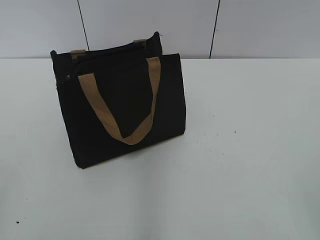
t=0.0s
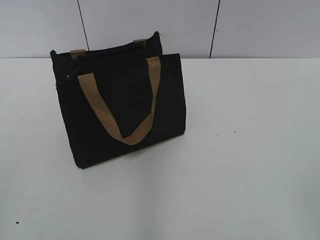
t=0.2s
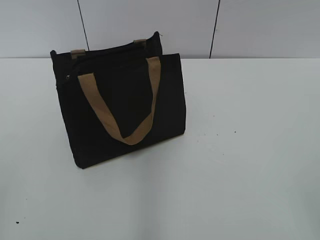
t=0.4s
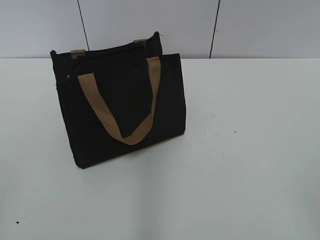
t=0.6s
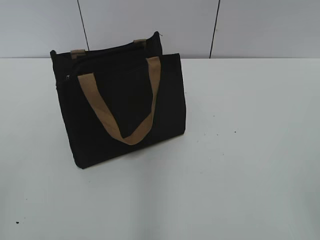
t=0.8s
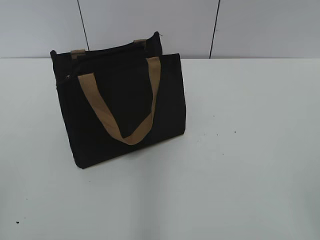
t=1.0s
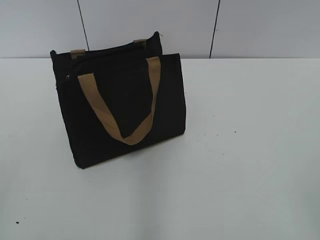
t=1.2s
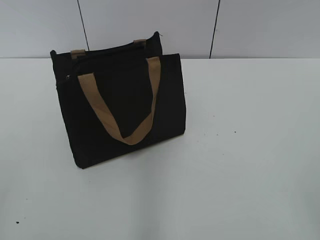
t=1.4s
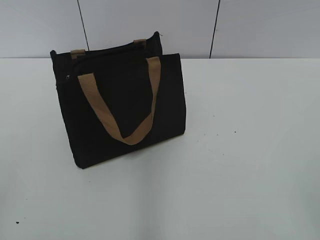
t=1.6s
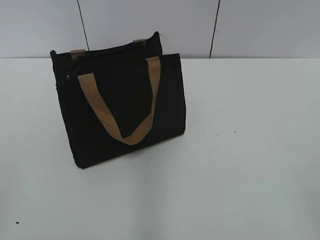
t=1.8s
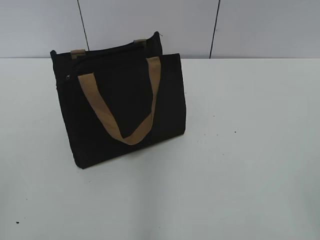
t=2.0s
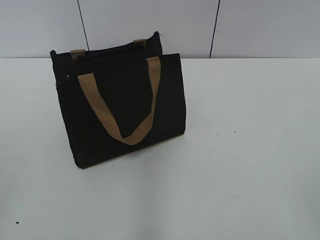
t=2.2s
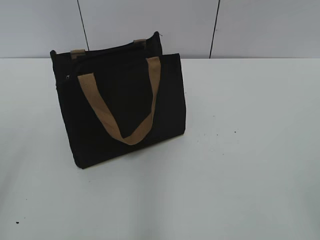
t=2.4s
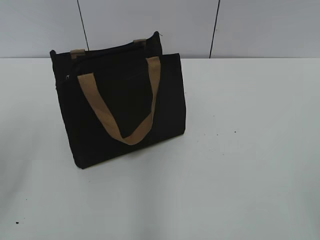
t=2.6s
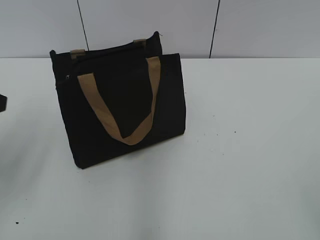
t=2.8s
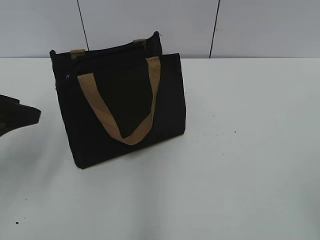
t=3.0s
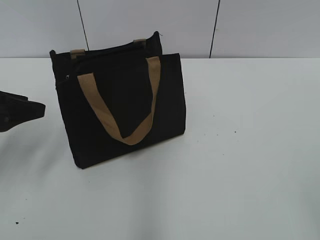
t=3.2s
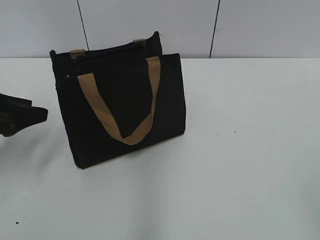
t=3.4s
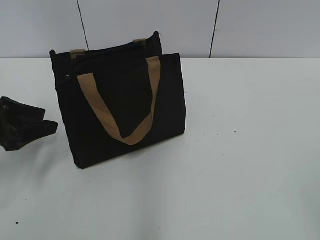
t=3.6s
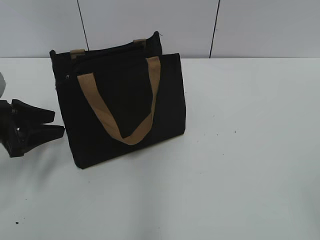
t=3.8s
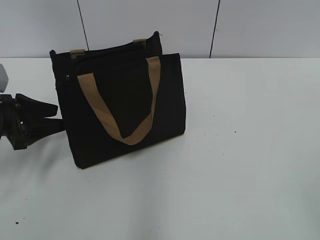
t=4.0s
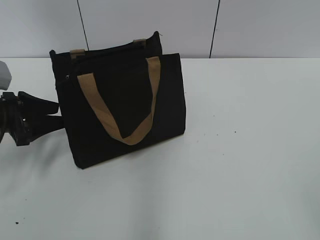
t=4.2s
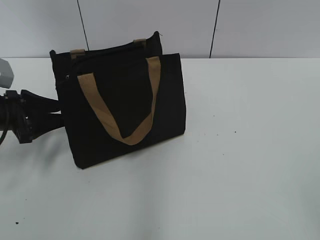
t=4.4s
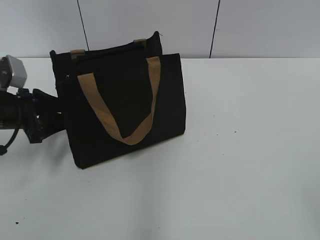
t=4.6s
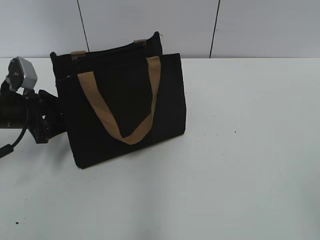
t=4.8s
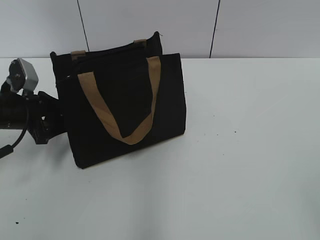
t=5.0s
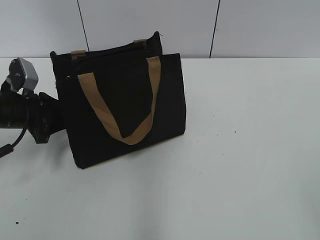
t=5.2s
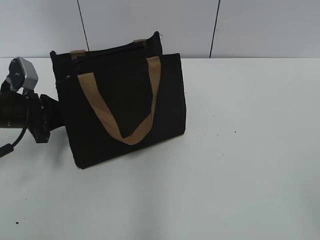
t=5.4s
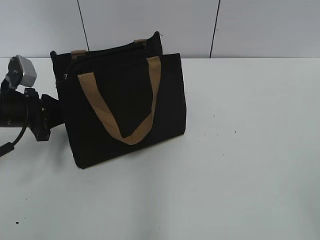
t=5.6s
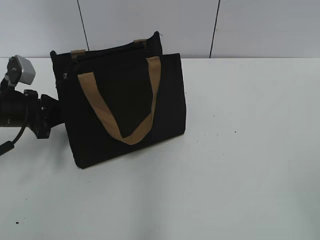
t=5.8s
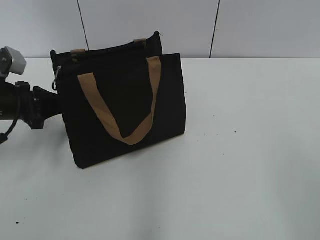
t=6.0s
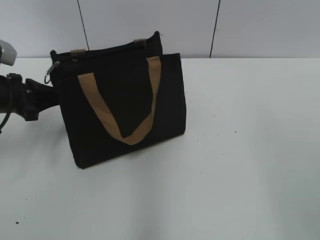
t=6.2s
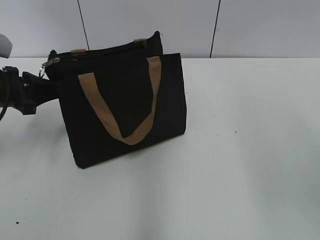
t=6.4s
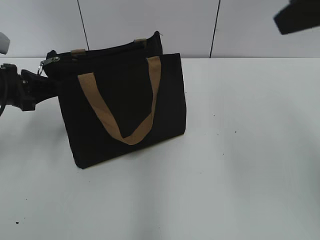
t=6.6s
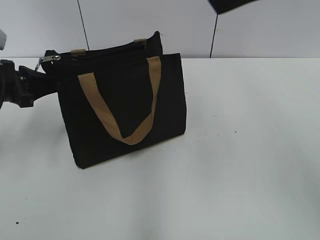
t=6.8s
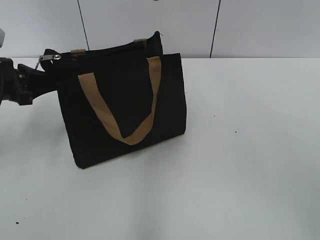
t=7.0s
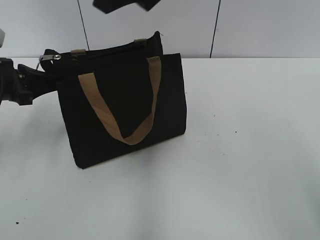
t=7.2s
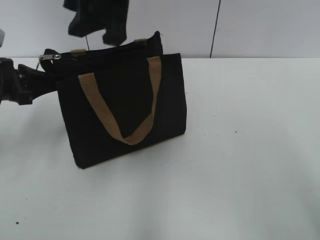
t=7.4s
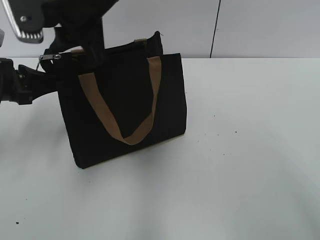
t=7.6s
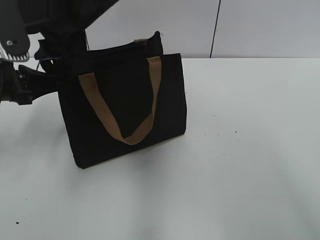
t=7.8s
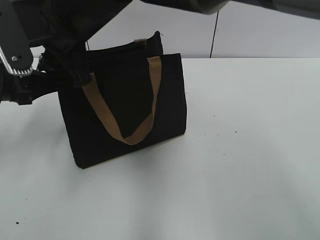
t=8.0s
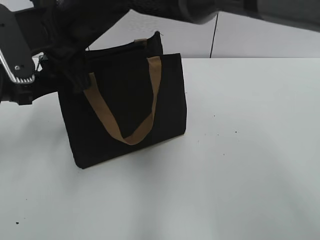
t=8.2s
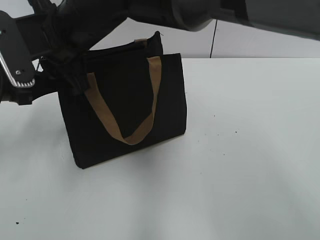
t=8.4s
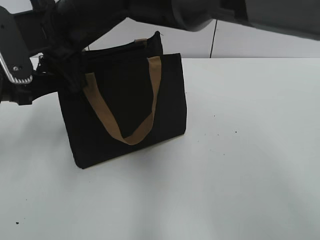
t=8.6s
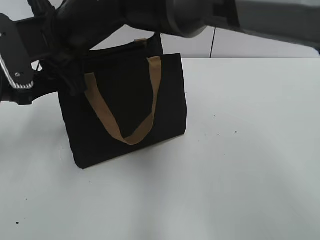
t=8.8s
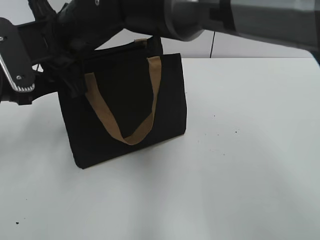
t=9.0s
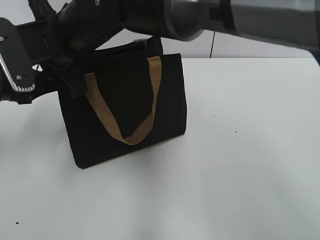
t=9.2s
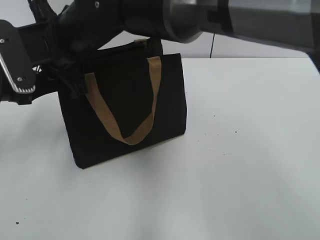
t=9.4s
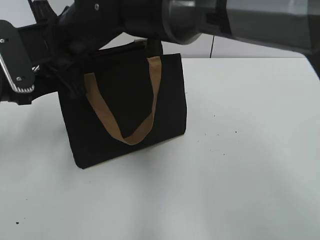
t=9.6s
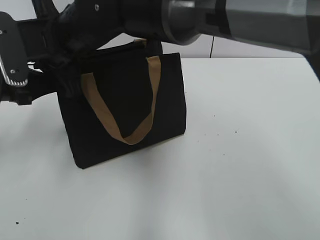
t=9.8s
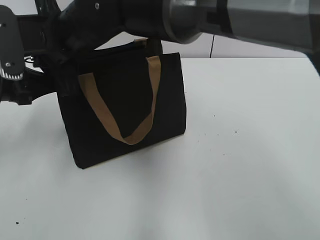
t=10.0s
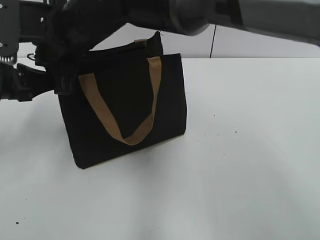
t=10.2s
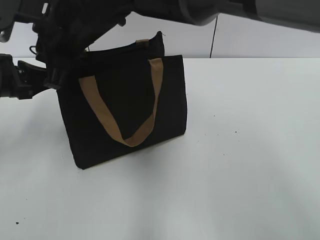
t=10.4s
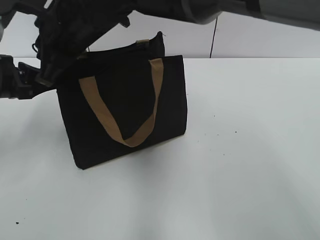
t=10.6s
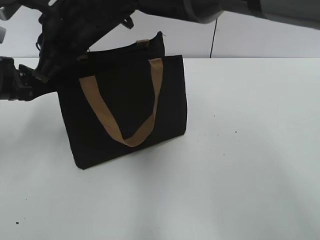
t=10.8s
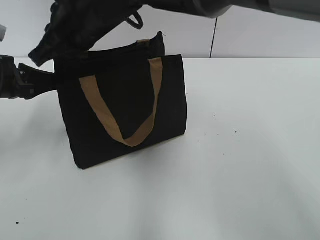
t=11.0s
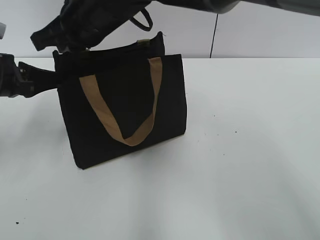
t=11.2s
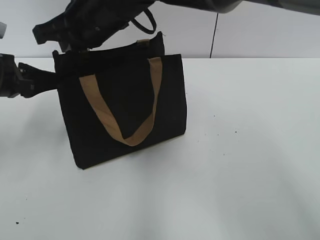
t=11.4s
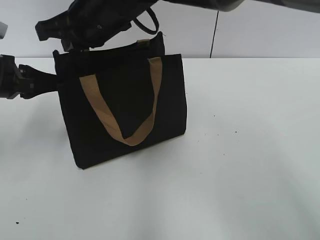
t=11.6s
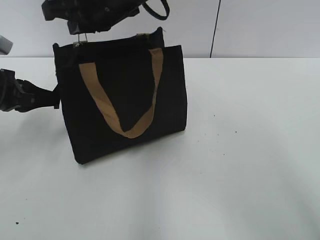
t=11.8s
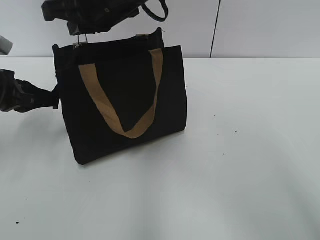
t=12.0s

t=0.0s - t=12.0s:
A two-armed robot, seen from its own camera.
t=1.6s - t=3.0s: The left gripper goes about 25 cm forward.
t=3.0s - t=4.4s: The left gripper heads downward and forward, covering approximately 15 cm.
t=4.4s - t=6.0s: The left gripper closes.
t=6.0s - t=7.6s: The right gripper is displaced to the left and forward by roughly 40 cm.
t=7.6s - t=9.0s: The right gripper shifts approximately 5 cm downward.
t=9.0s - t=10.4s: The right gripper closes up.
t=10.4s - t=12.0s: The right gripper moves to the right, roughly 5 cm.

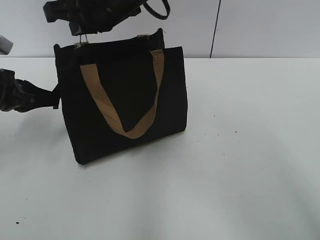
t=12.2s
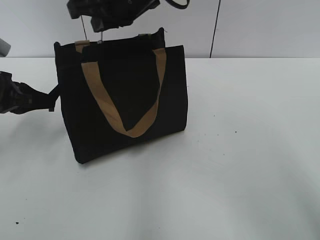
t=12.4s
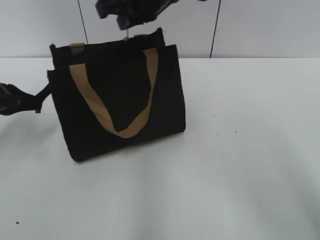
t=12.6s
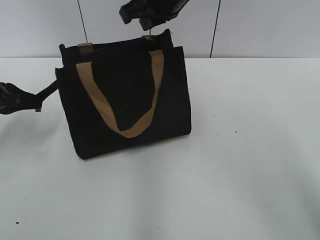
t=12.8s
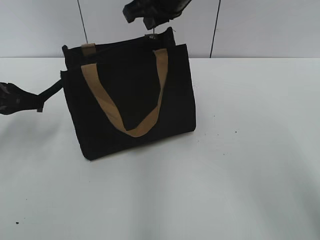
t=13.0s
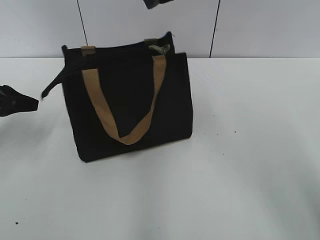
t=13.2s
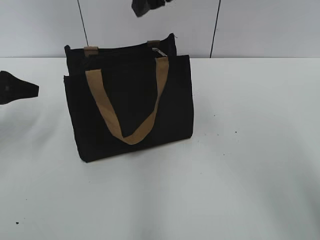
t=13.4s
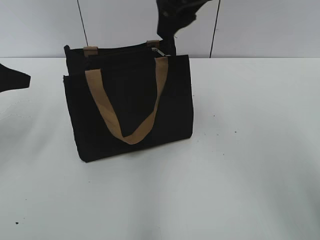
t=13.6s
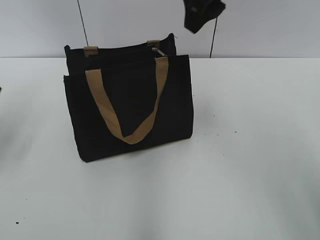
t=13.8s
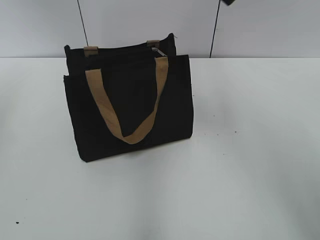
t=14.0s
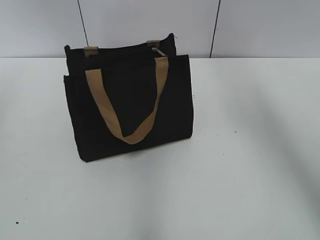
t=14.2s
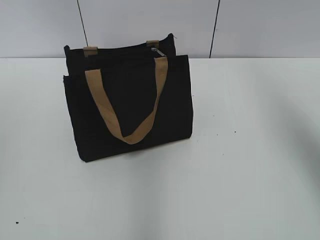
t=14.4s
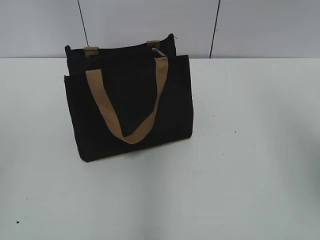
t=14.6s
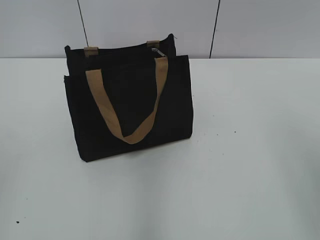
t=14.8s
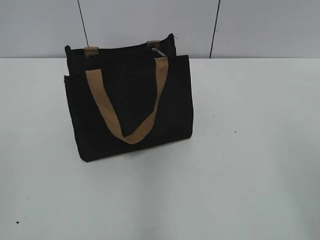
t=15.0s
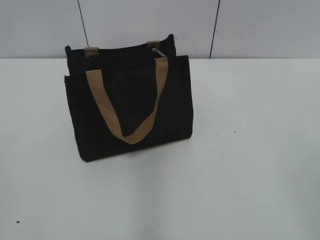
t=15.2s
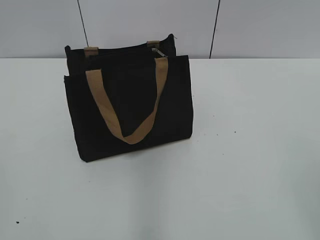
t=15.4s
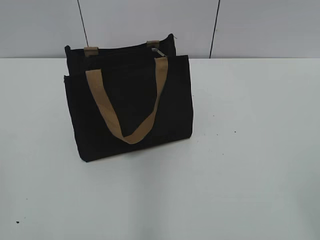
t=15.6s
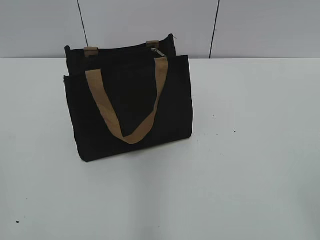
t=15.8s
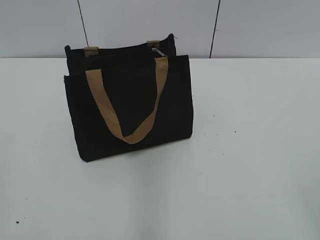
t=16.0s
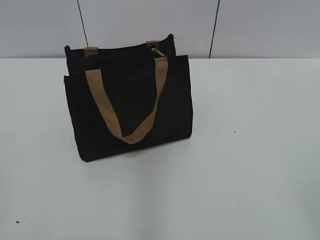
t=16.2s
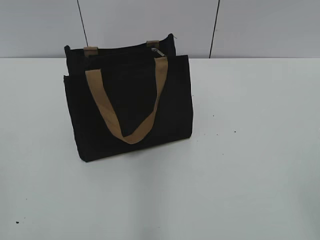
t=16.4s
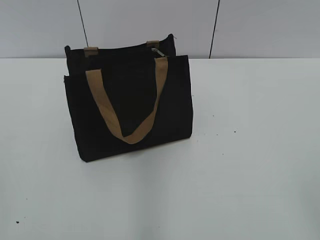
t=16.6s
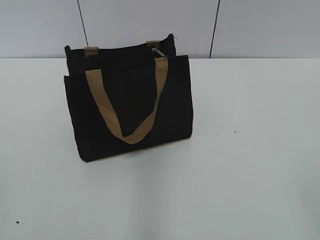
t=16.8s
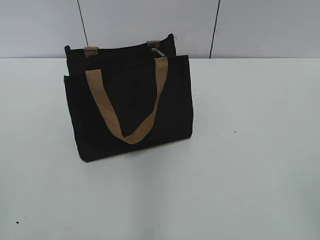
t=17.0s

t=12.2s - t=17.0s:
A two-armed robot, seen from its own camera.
Step, t=13.2s - t=13.4s: Grab the zipper with your left hand.
t=12.2s - t=13.8s: The left gripper moves upward, some 10 cm, and opens its fingers; the right gripper is displaced to the right and upward by about 15 cm, and opens.
t=13.8s - t=15.4s: The right gripper is displaced backward and to the right by some 40 cm. The left gripper moves backward, some 30 cm.
t=15.4s - t=17.0s: The grippers stay close to where they were, moving slightly.

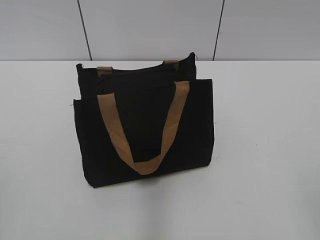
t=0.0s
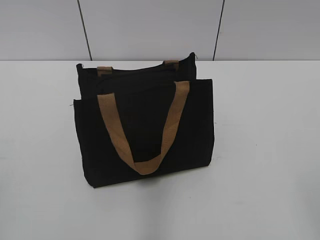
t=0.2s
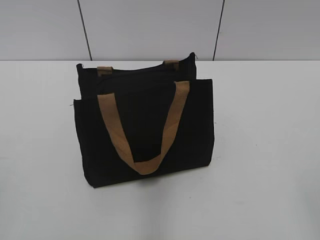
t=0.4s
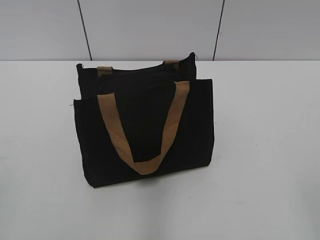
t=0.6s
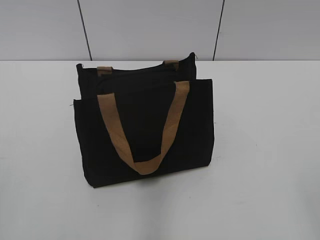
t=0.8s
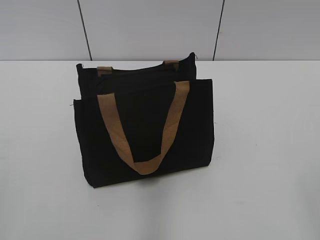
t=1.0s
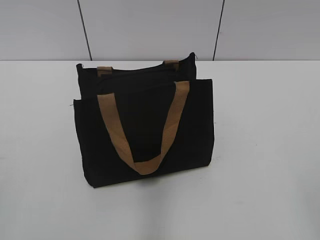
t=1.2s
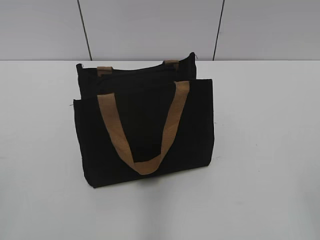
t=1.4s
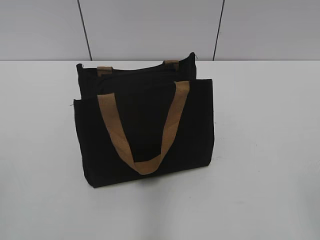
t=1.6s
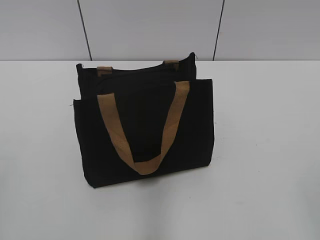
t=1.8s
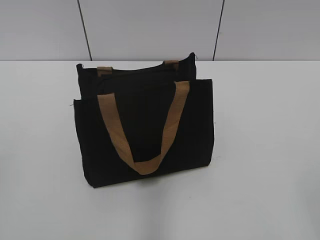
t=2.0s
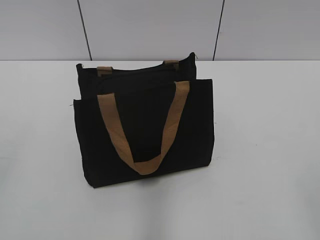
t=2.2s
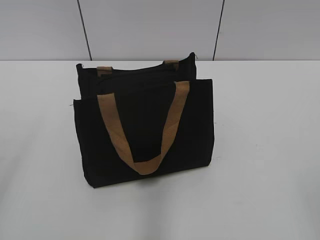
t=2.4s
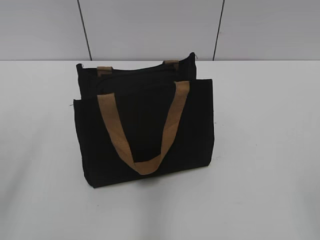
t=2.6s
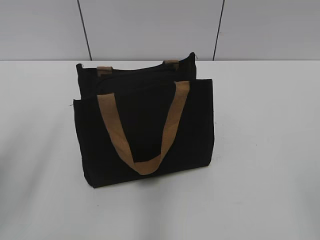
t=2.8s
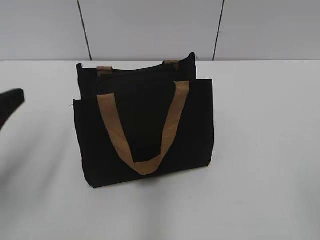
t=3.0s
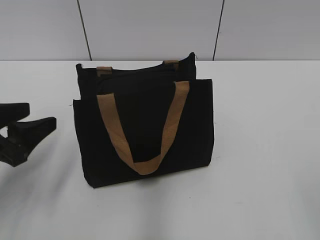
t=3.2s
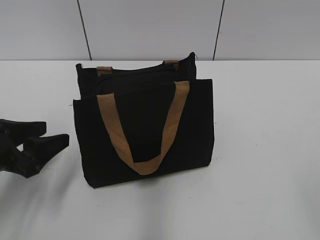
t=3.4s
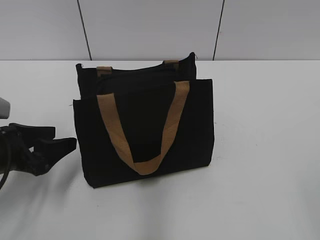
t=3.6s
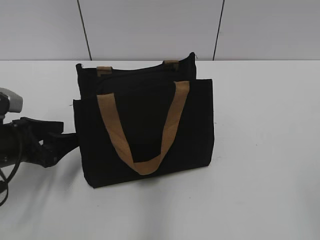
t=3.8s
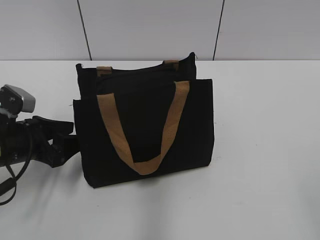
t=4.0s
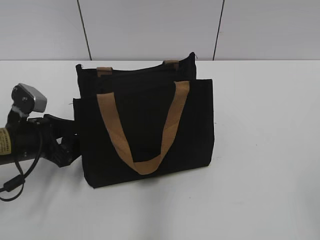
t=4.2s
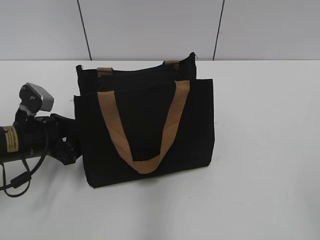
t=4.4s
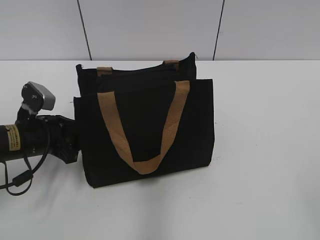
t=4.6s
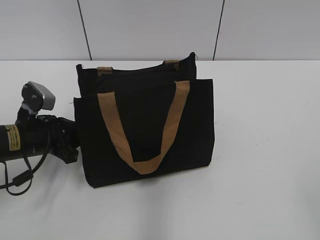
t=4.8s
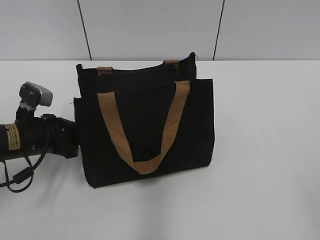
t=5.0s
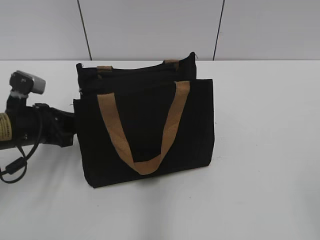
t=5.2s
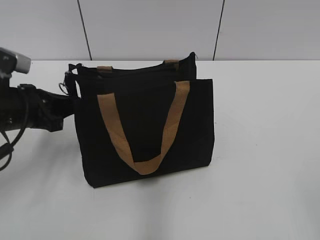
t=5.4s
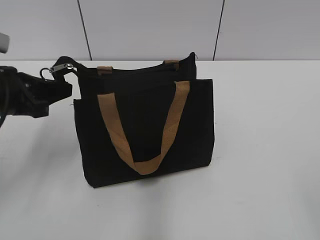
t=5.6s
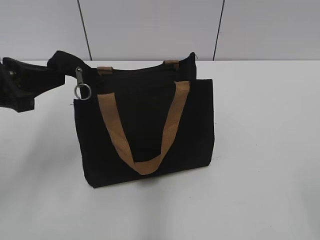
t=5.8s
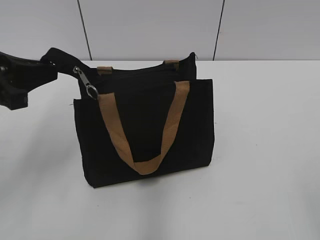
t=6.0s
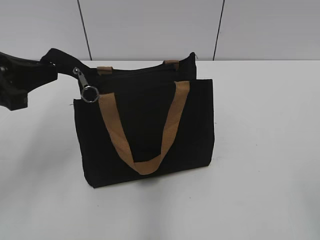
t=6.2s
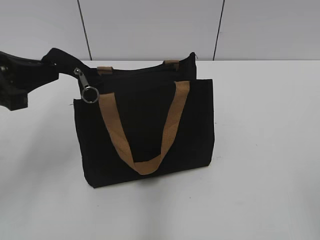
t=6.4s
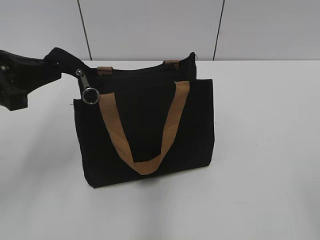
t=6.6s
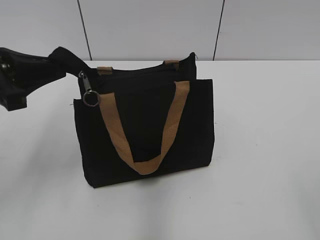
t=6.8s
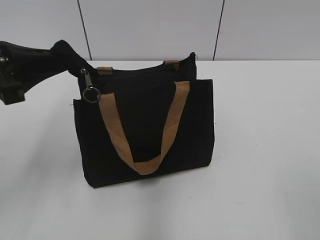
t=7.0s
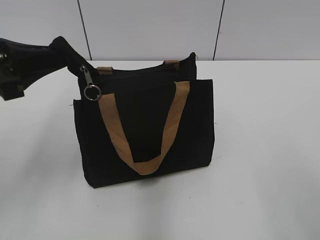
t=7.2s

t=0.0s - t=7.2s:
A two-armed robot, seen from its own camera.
t=1.4s - t=2.8s: The left gripper shifts some 15 cm forward, and opens up.
t=2.8s - t=4.4s: The left gripper is displaced downward and forward by about 20 cm.
t=4.4s - t=5.8s: The left gripper shifts about 15 cm upward, and closes its fingers.
t=5.8s - t=7.2s: The grippers move only a little.
